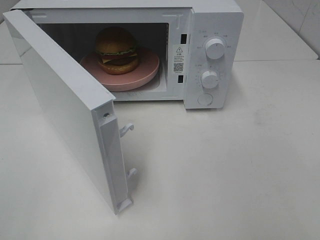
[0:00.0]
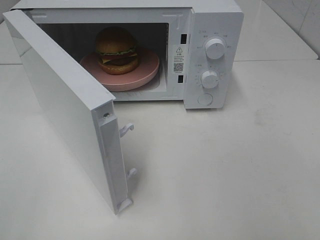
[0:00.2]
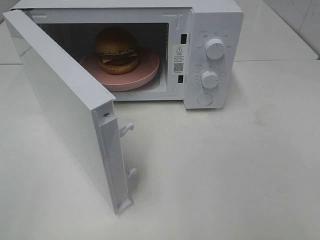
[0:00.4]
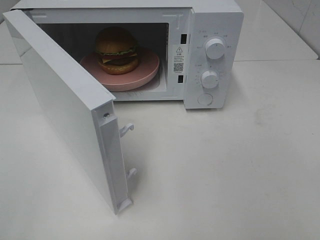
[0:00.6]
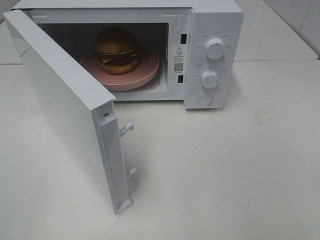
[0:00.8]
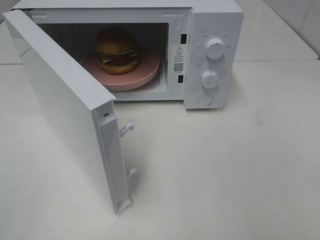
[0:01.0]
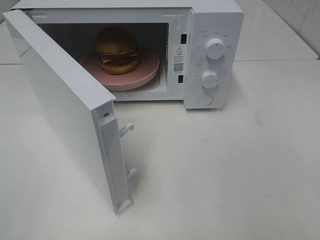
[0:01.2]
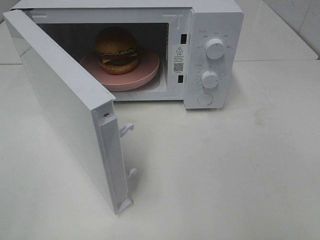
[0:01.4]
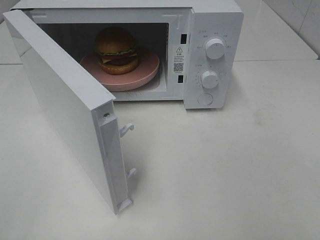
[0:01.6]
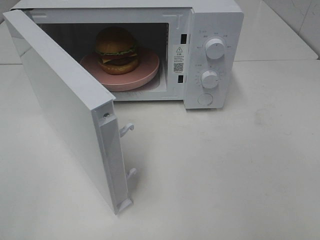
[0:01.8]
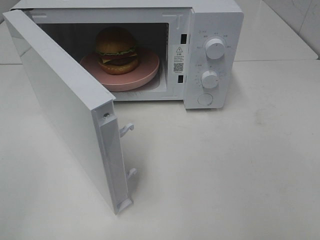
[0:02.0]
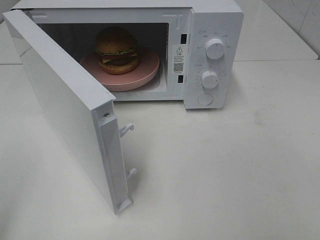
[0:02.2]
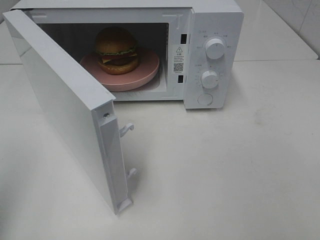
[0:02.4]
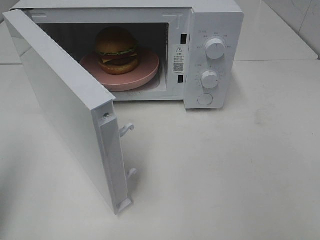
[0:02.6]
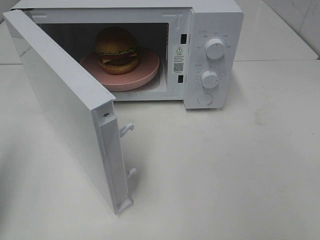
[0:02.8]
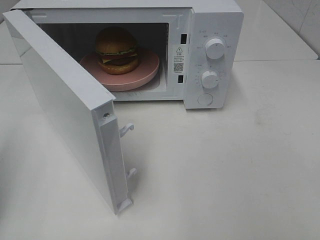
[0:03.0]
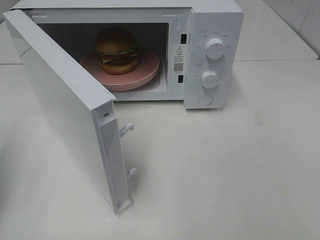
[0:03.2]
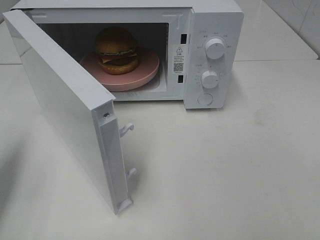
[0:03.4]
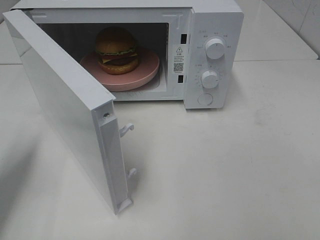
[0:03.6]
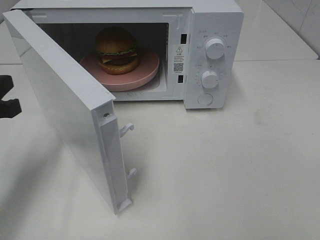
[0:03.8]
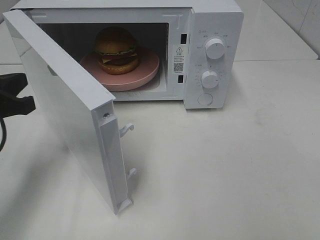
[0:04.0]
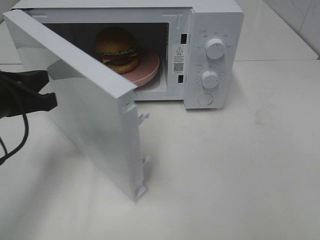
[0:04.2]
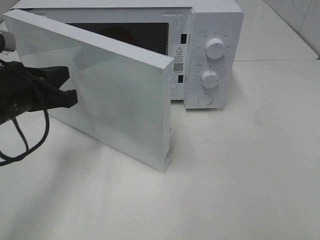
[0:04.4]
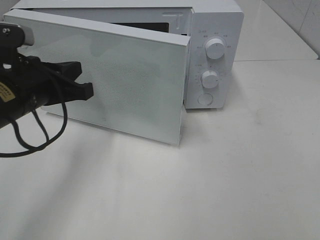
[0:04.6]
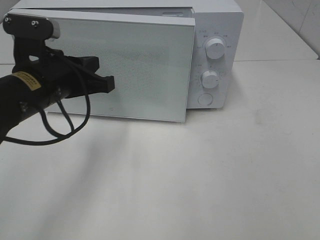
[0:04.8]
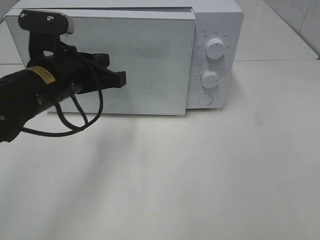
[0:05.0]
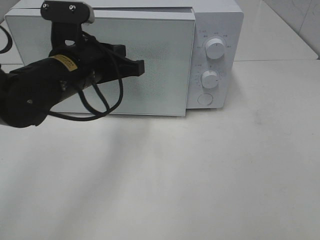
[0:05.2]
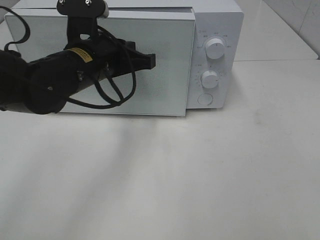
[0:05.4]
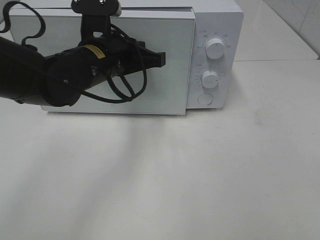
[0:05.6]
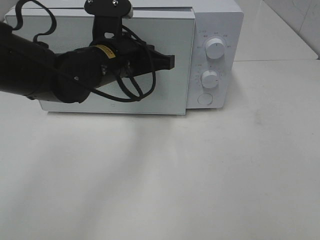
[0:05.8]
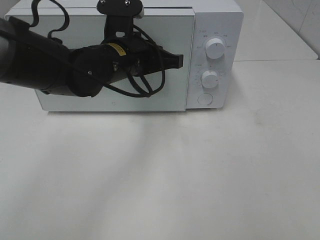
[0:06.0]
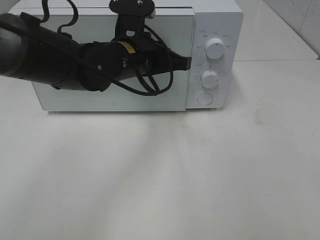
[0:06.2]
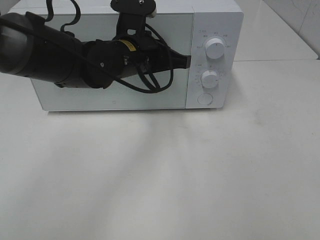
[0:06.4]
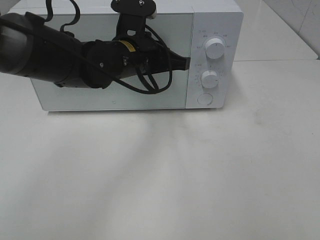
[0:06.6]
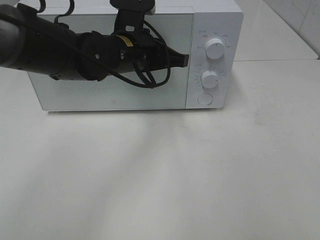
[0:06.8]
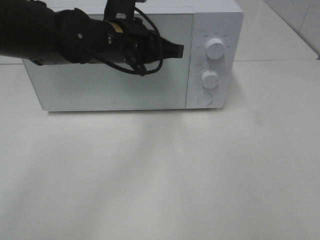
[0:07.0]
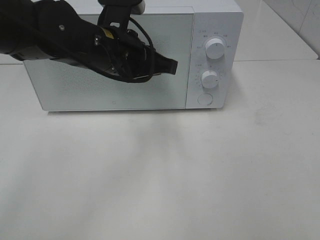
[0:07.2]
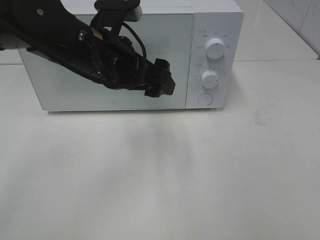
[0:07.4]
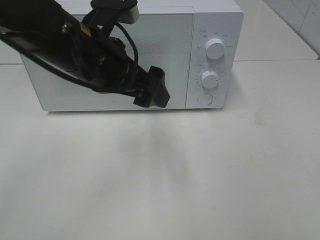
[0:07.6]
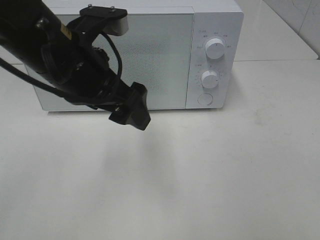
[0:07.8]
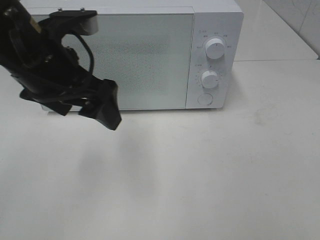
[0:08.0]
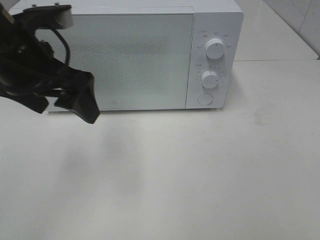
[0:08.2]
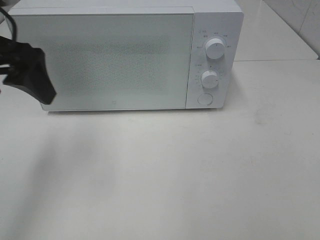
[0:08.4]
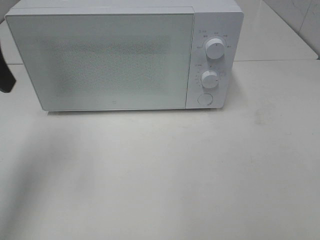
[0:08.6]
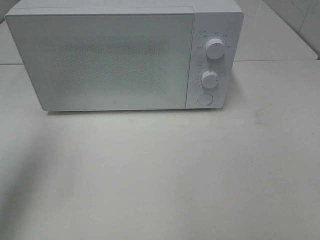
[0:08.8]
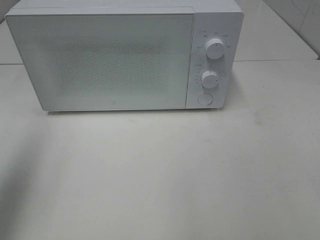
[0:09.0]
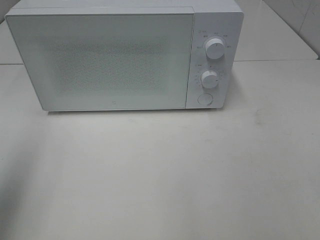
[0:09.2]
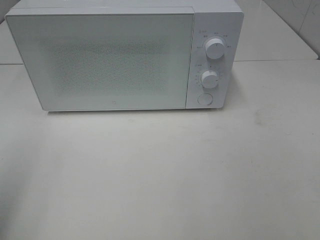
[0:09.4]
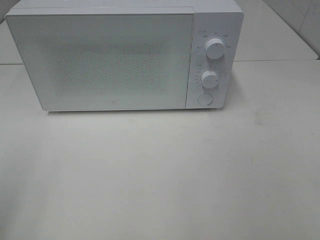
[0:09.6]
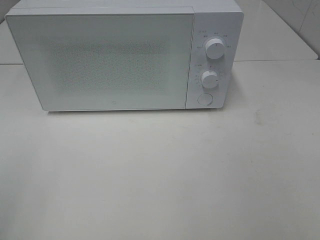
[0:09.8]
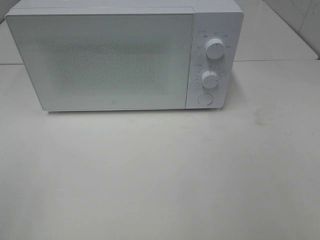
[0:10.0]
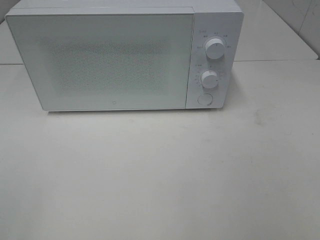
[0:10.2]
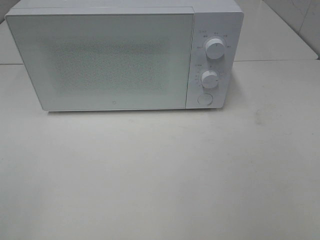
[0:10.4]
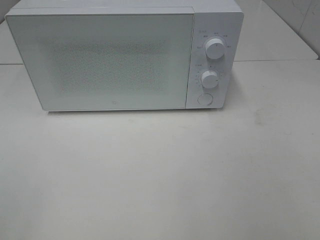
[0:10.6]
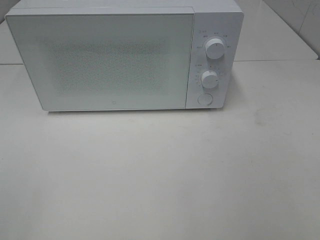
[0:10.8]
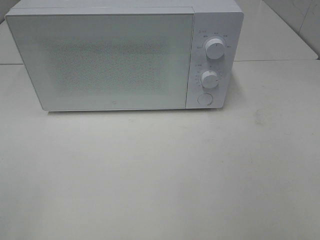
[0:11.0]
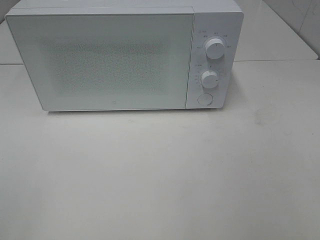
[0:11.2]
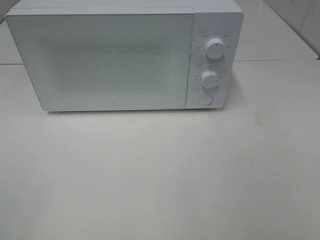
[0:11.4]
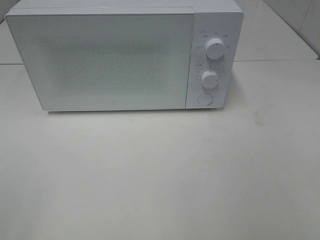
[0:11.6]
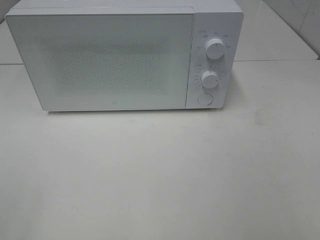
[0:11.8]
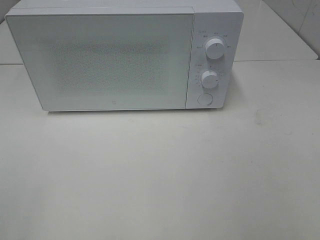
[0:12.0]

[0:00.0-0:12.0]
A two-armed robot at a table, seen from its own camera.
Task of the whole recording: Heat the burger.
Step, 0:00.0 to 0:06.8: Left hand: close the microwave door.
0:00.0 to 0:01.6: The two grippers keep their place.
0:01.6 to 0:03.0: The left gripper goes roughly 15 cm forward, and closes.
0:03.0 to 0:04.4: The left gripper heads to the right, forward and downward, covering some 20 cm.
0:04.4 to 0:06.0: The left gripper goes about 15 cm to the right and forward.
0:06.0 to 0:07.6: The left gripper moves backward and upward, roughly 10 cm, and opens up.
0:07.6 to 0:09.0: The left gripper goes approximately 25 cm to the left and upward.
0:09.0 to 0:10.4: The left gripper goes roughly 20 cm backward.

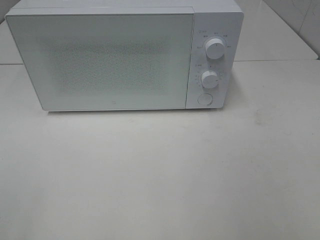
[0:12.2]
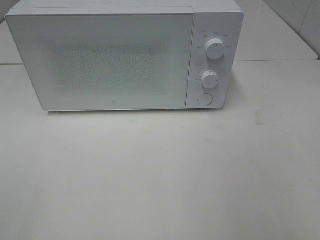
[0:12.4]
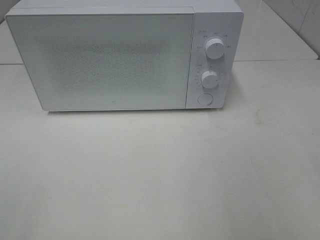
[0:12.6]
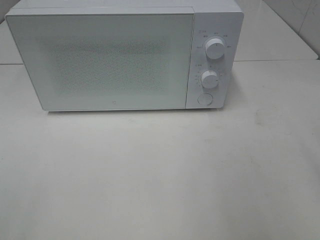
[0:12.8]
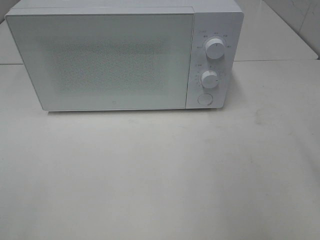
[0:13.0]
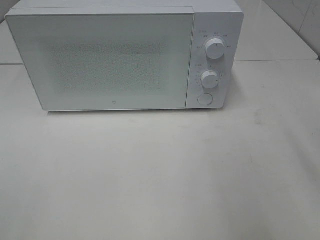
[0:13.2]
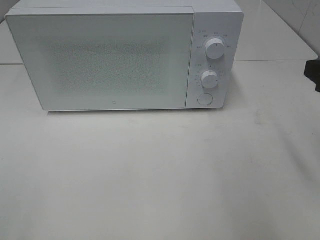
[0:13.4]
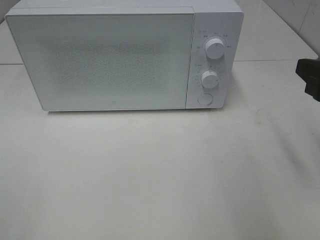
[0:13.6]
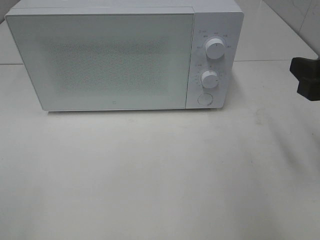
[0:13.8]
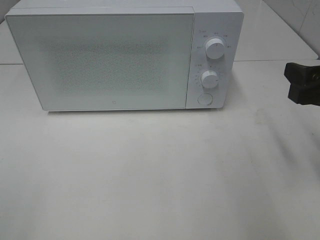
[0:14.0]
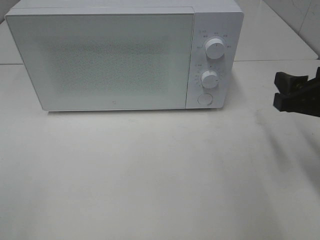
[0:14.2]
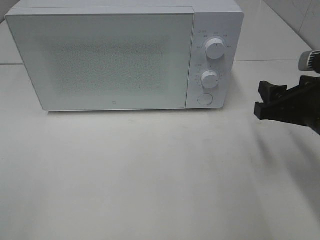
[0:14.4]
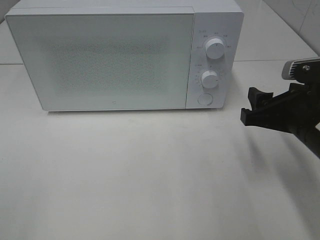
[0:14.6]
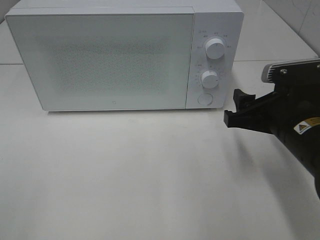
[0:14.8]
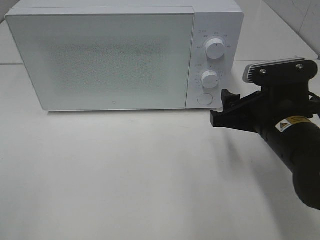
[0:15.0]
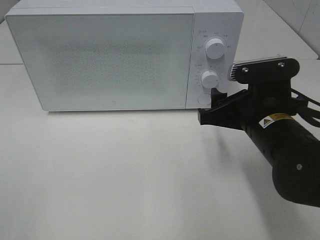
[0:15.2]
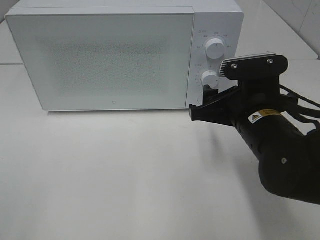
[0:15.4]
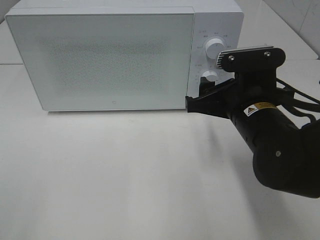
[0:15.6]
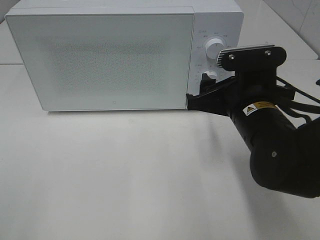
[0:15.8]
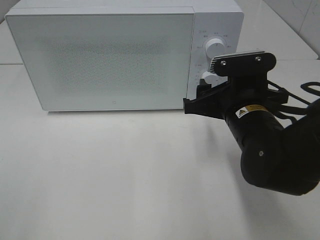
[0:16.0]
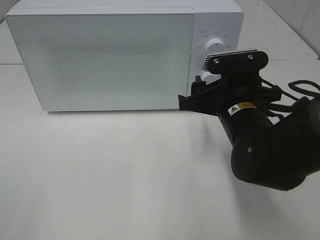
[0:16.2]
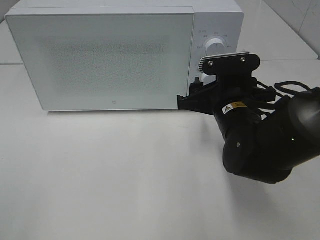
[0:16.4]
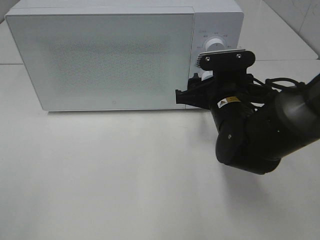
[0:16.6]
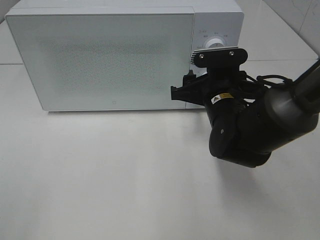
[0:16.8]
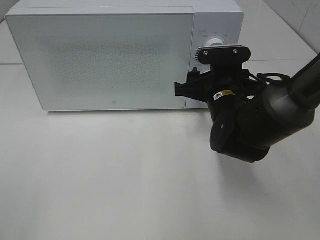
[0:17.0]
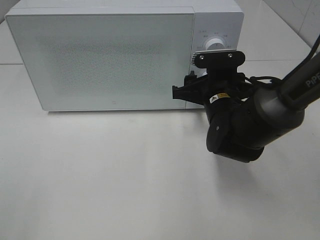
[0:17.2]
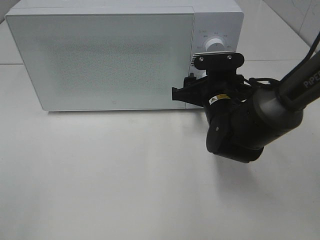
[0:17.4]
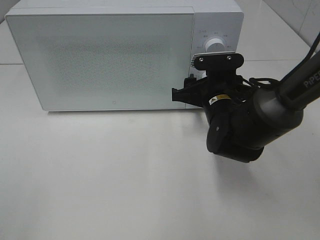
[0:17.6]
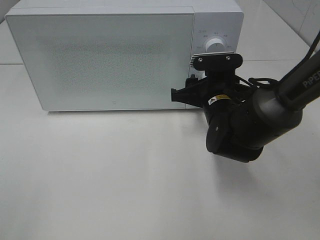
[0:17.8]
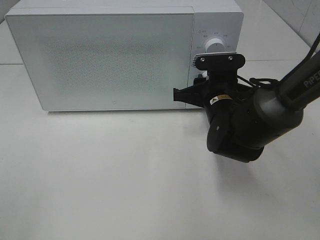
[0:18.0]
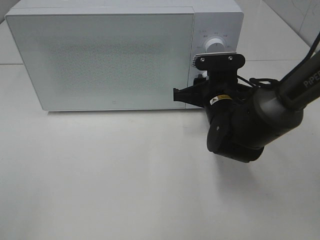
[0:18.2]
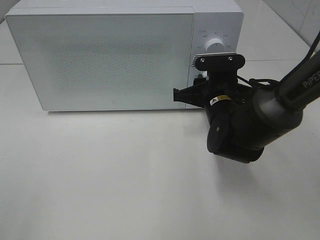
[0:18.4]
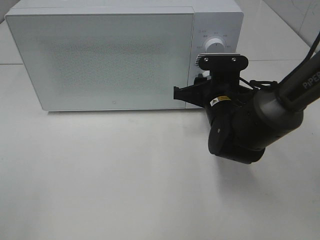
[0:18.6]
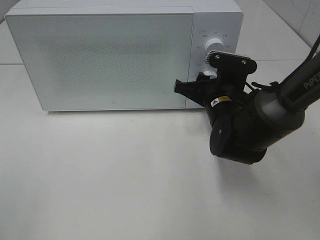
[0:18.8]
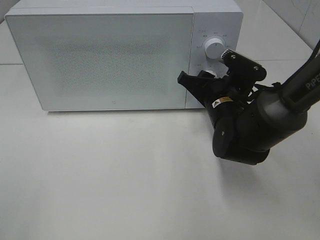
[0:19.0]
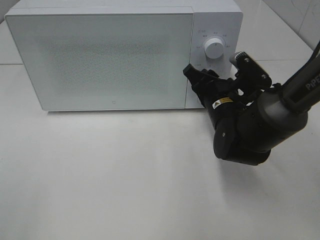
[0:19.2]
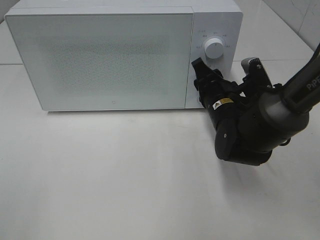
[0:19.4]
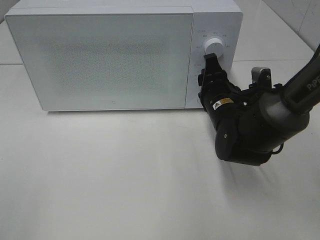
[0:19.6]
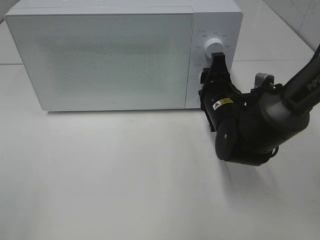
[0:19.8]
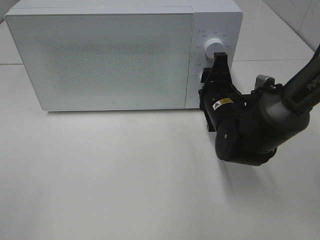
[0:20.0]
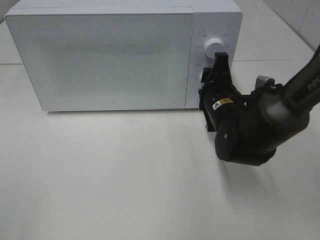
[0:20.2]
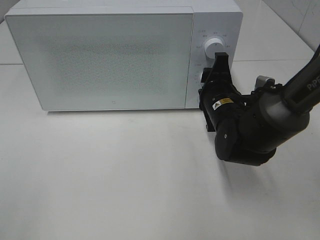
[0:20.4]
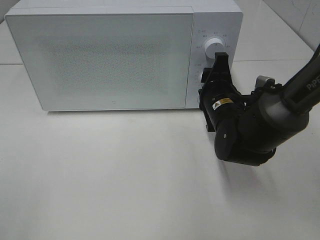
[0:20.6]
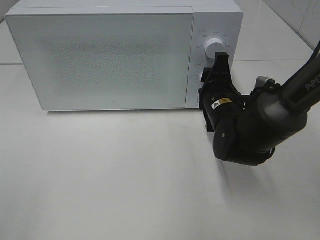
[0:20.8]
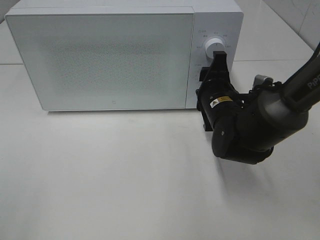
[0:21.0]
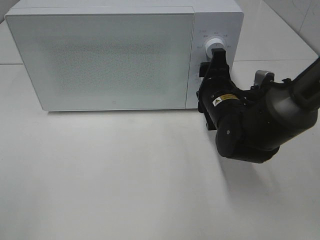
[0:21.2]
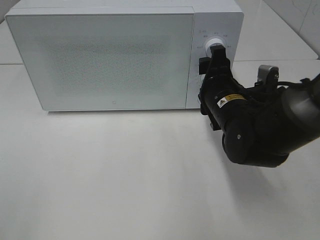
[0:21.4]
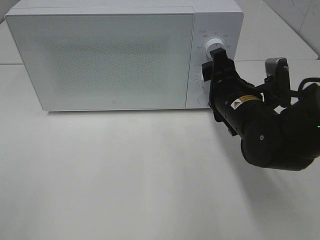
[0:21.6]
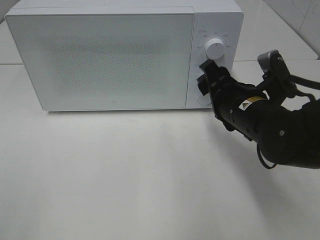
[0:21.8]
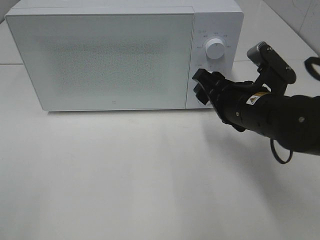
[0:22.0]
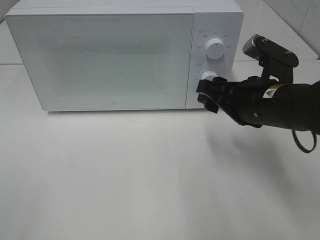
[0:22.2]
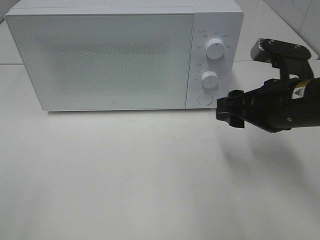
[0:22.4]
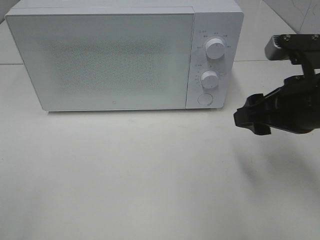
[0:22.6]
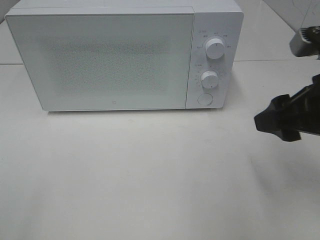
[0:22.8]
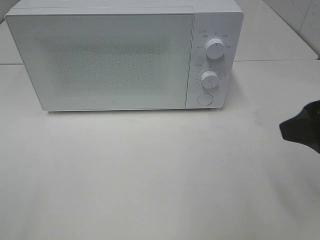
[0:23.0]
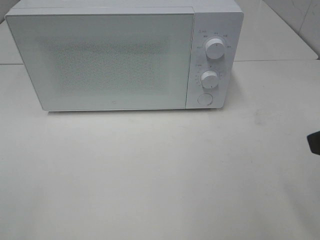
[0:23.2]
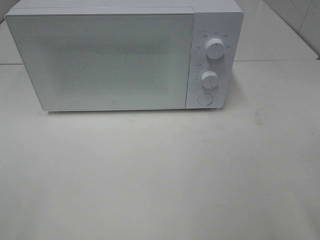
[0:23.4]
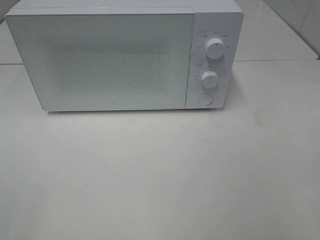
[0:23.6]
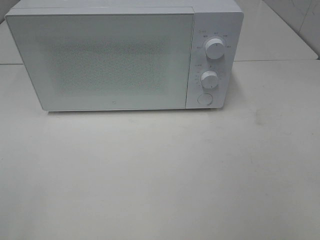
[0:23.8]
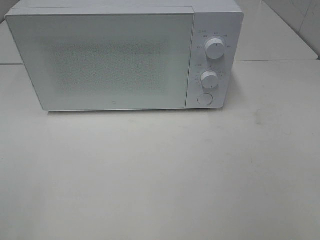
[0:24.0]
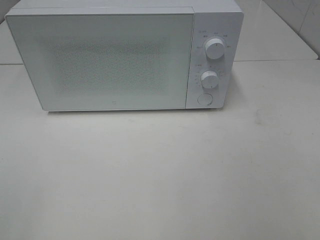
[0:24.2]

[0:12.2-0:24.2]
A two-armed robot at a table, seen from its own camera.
Task of the whole recording: Heat the burger.
Step, 0:12.2 to 0:21.2: Right hand: twist timer button.
0:12.2 to 0:13.8: The right gripper travels forward and downward by roughly 15 cm.
0:13.8 to 0:15.2: The right gripper moves to the left and downward, some 15 cm.
0:15.2 to 0:16.6: The right gripper goes about 5 cm forward.
0:16.6 to 0:18.2: There are only small adjustments of the grippers.
0:19.8 to 0:21.2: Both grippers stay put.
0:21.2 to 0:22.6: The right gripper shifts about 15 cm backward, upward and to the right.
0:22.6 to 0:24.2: The right gripper travels backward and to the right by some 25 cm.
